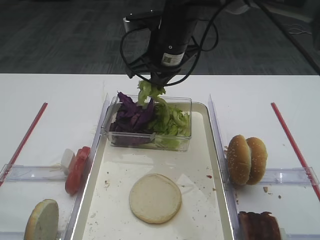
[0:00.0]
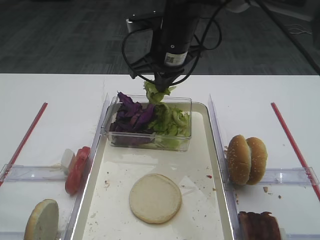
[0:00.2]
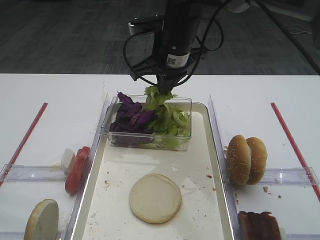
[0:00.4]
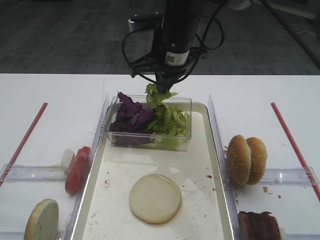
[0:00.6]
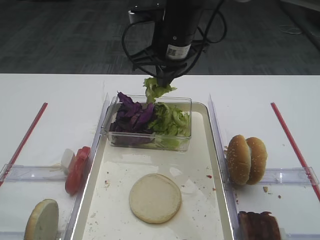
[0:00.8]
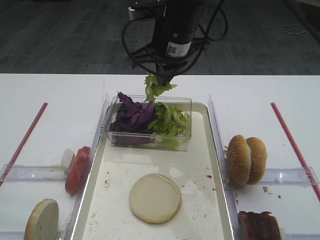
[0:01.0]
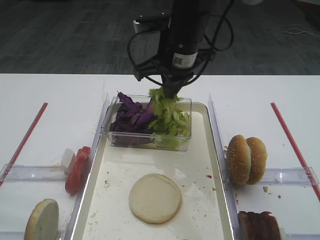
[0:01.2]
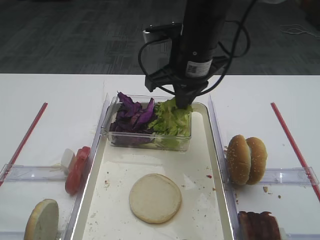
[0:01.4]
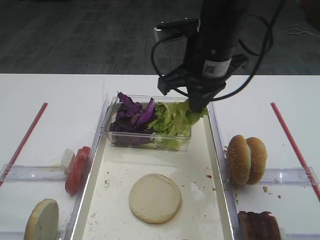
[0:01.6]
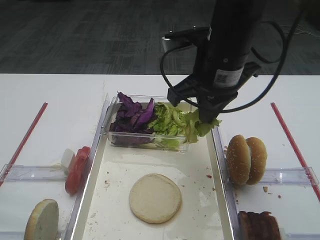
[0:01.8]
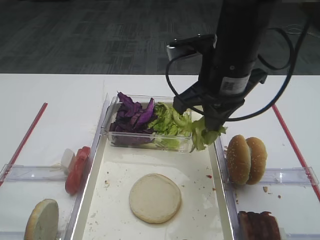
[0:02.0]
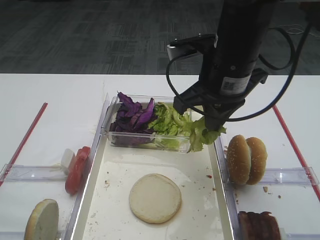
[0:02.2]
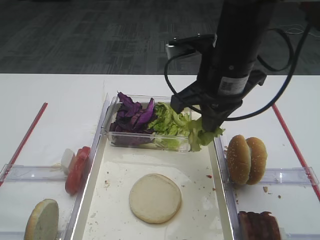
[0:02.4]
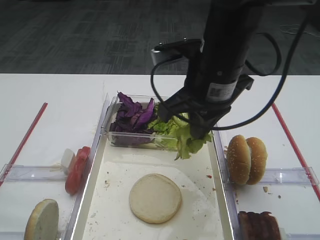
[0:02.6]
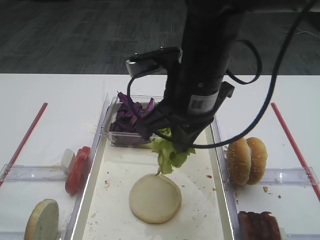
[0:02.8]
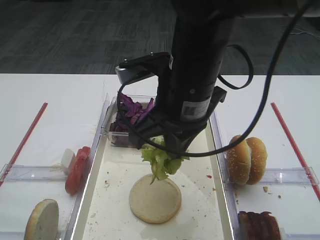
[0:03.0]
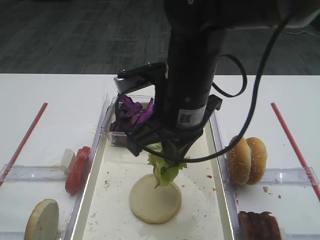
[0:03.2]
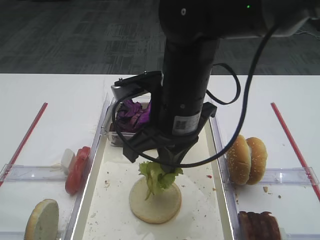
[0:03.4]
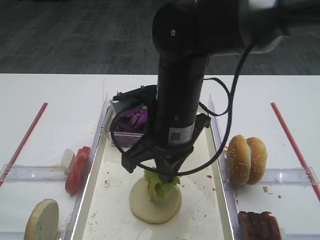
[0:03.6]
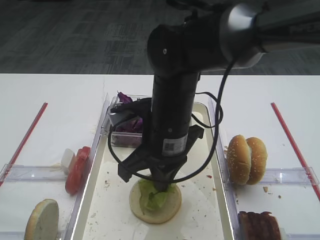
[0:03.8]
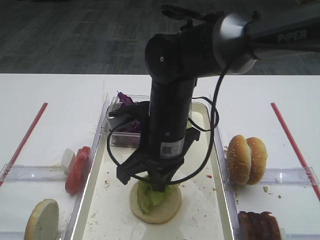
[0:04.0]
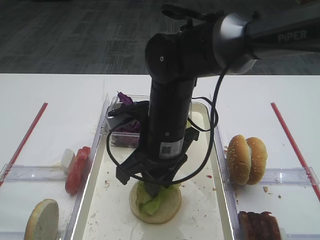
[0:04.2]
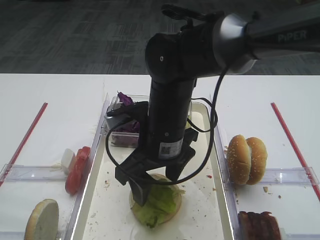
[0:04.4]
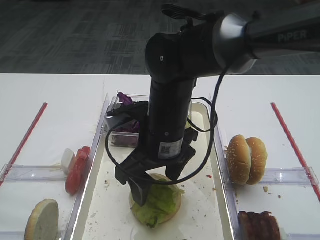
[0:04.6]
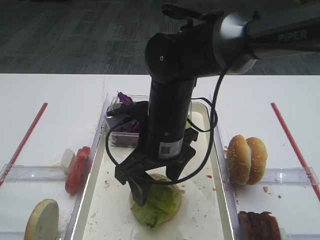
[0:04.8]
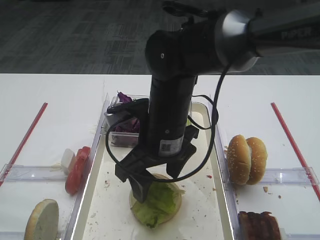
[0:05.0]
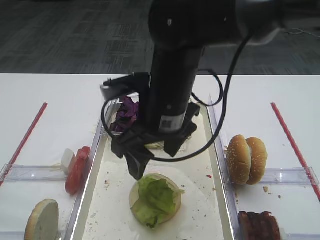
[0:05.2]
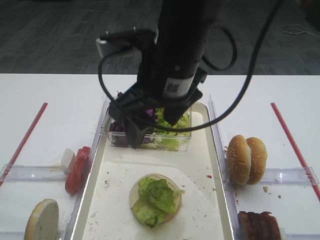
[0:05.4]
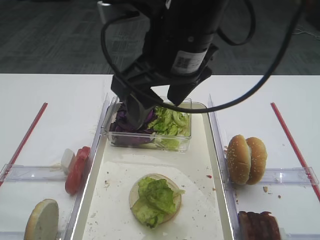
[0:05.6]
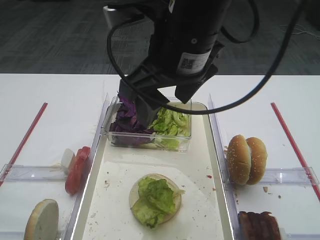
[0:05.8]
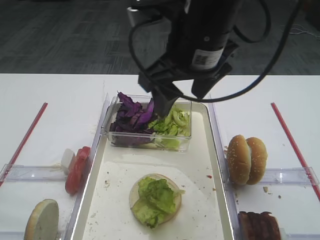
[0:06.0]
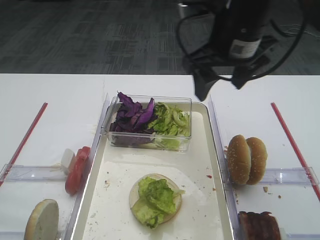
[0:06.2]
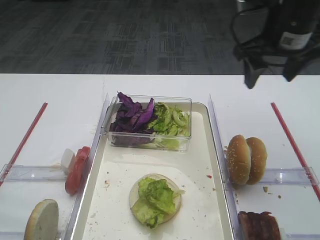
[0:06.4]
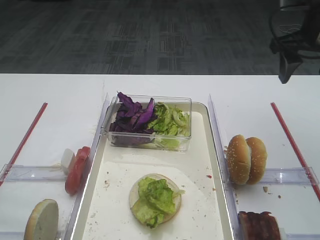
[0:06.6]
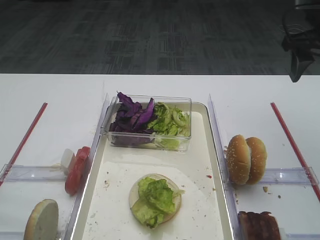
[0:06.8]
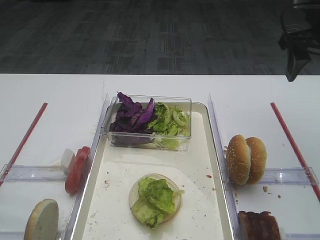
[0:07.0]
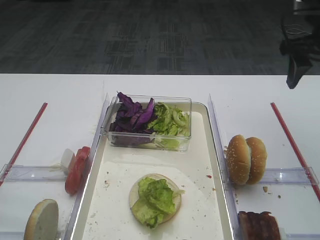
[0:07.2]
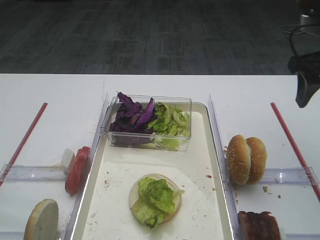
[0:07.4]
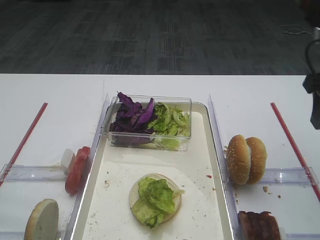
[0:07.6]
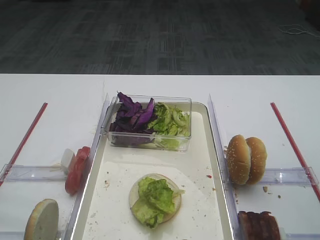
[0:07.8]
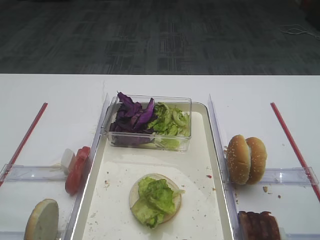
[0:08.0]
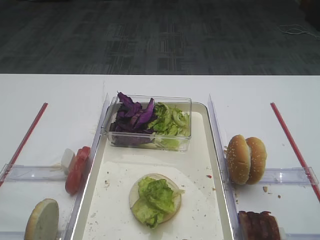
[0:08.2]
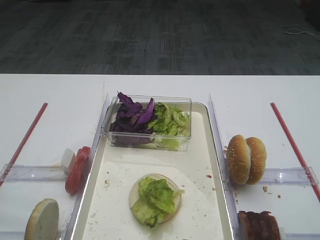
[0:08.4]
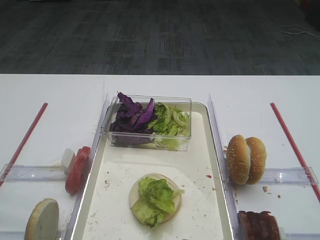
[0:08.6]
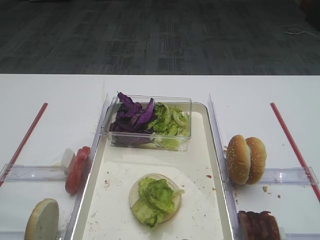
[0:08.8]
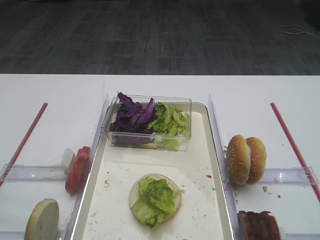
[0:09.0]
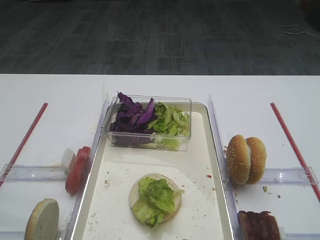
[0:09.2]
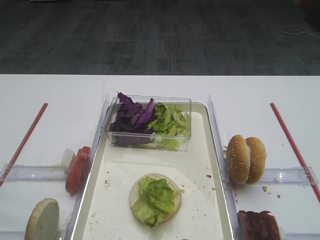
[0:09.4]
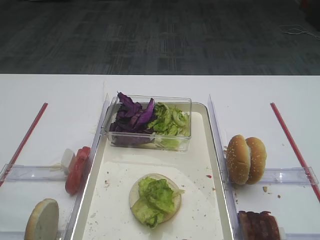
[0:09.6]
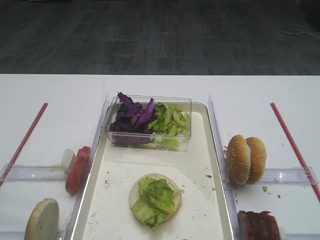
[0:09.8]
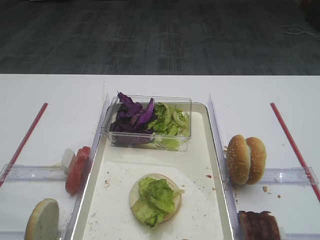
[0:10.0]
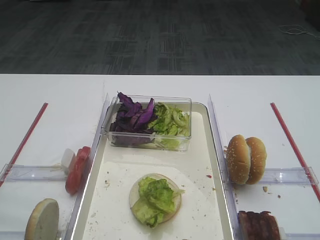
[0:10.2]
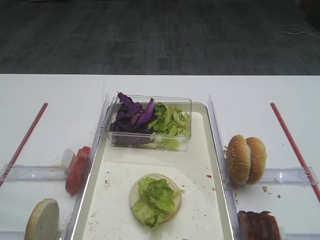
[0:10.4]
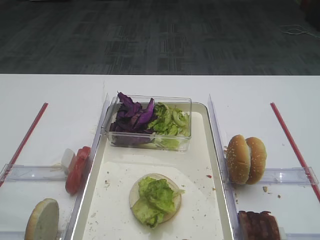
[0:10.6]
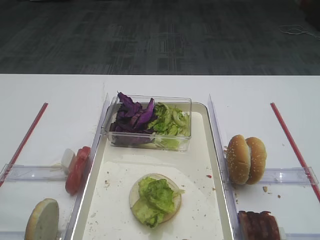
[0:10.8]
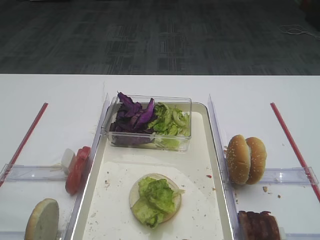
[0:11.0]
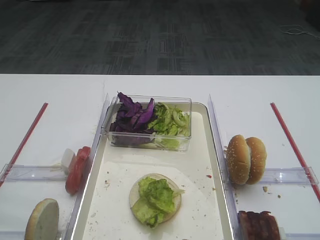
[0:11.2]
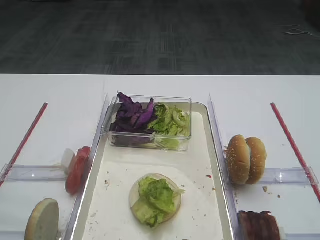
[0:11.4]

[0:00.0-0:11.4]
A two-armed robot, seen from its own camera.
Step, 0:00.8 to 0:06.2: Place the lettuce leaf on the bread slice with the right gripper.
0:00.0 to 0:01.4: The right gripper moves about 5 cm.
0:01.4 to 0:02.8: The right gripper heads backward, covering approximately 10 cm.
0:02.8 to 0:04.2: The right gripper is displaced downward by about 10 cm, and opens up.
0:04.2 to 0:05.6: The right gripper is displaced upward by roughly 15 cm, and opens up.
0:05.6 to 0:07.2: The right gripper moves to the right and forward, about 25 cm.
0:07.2 to 0:08.6: The right gripper travels backward by some 30 cm.
0:10.0 to 0:11.4: The two grippers keep their place.

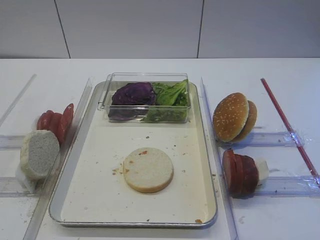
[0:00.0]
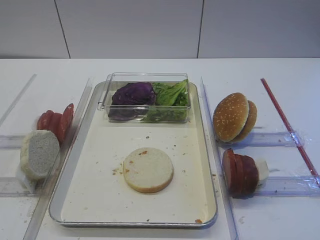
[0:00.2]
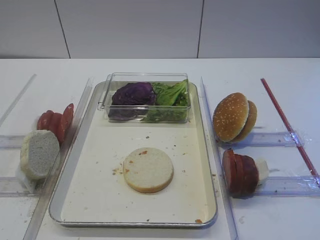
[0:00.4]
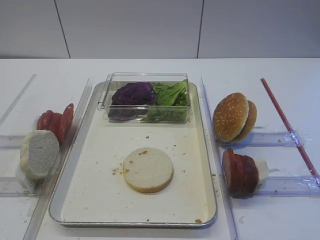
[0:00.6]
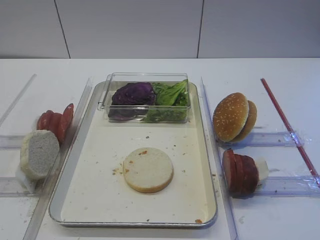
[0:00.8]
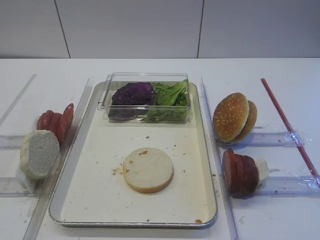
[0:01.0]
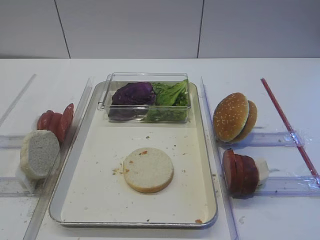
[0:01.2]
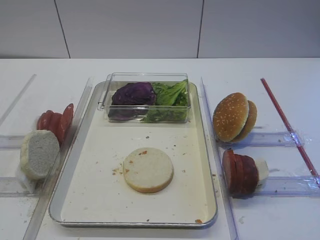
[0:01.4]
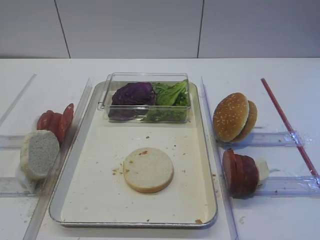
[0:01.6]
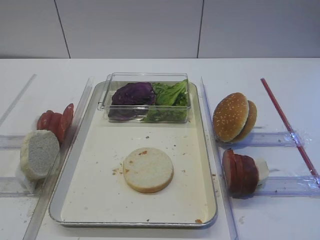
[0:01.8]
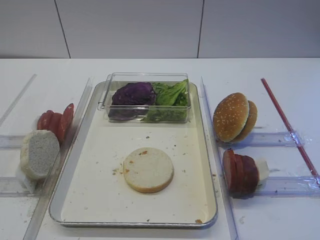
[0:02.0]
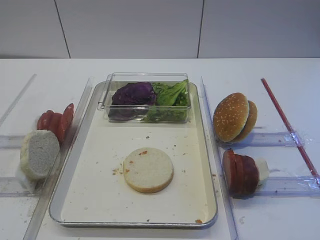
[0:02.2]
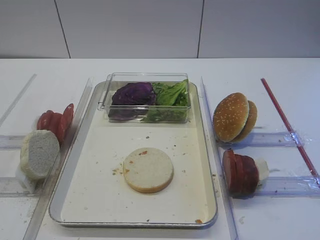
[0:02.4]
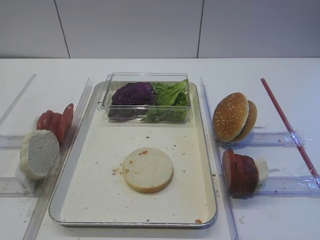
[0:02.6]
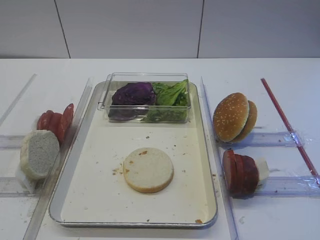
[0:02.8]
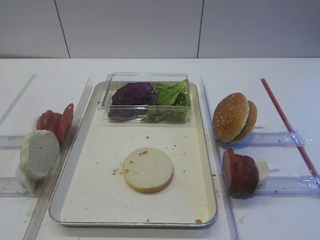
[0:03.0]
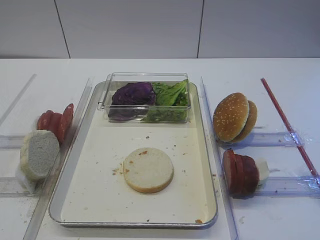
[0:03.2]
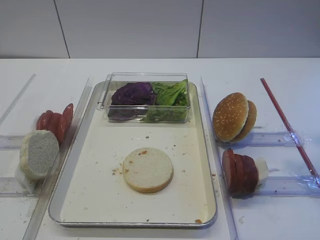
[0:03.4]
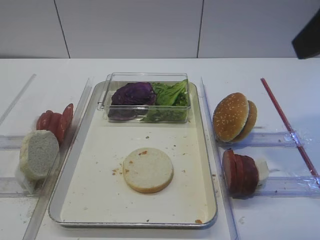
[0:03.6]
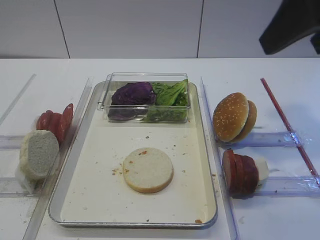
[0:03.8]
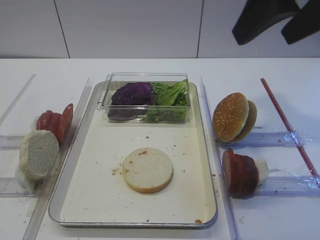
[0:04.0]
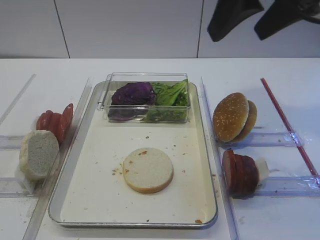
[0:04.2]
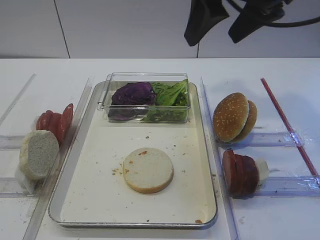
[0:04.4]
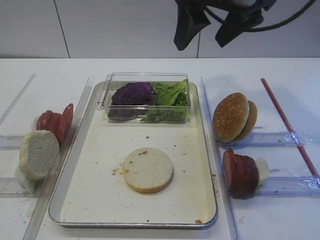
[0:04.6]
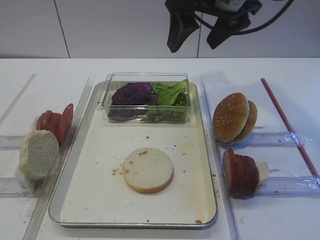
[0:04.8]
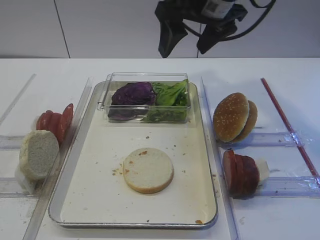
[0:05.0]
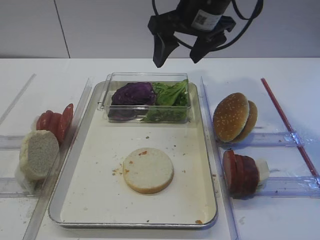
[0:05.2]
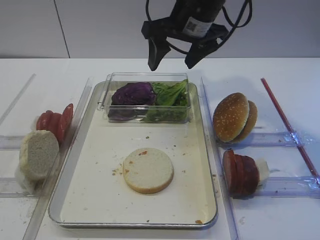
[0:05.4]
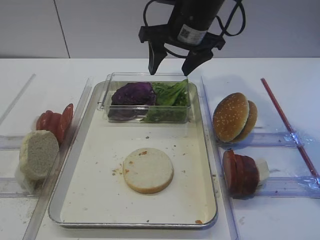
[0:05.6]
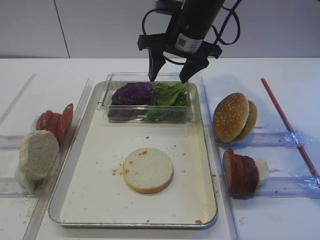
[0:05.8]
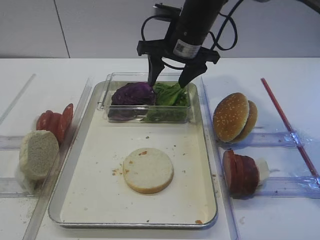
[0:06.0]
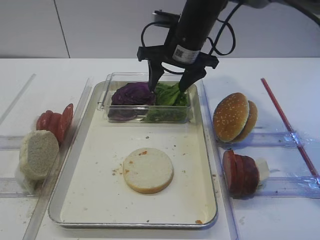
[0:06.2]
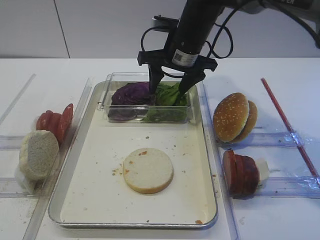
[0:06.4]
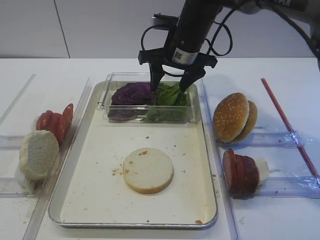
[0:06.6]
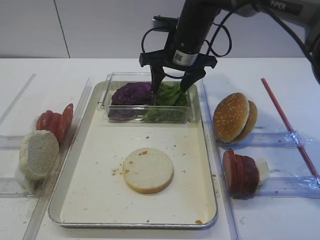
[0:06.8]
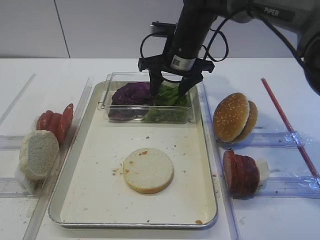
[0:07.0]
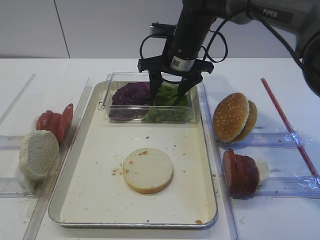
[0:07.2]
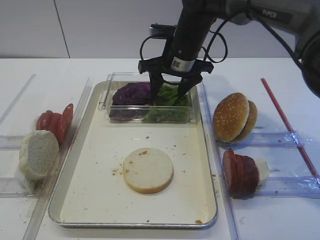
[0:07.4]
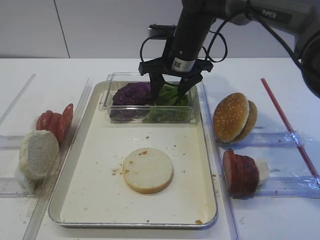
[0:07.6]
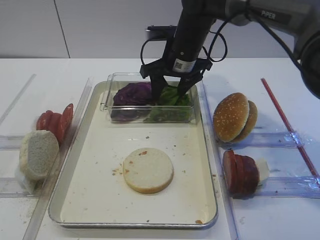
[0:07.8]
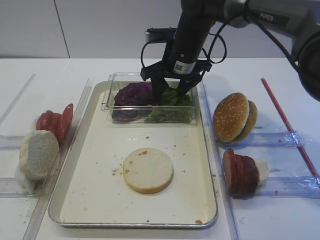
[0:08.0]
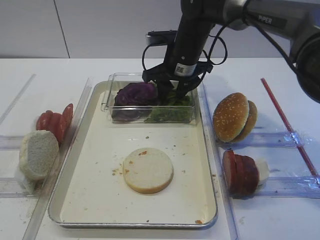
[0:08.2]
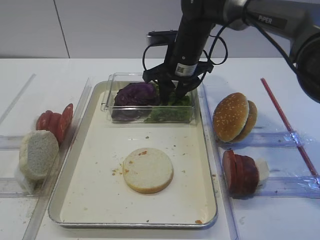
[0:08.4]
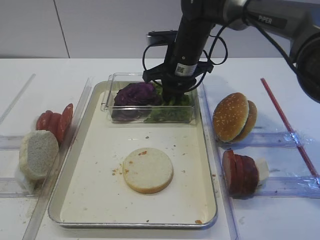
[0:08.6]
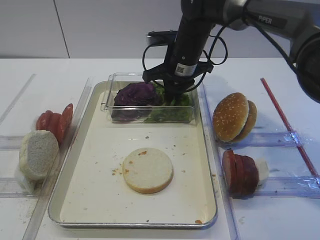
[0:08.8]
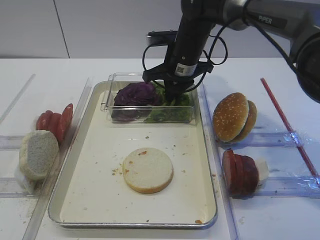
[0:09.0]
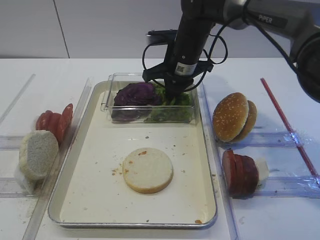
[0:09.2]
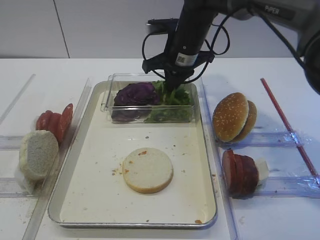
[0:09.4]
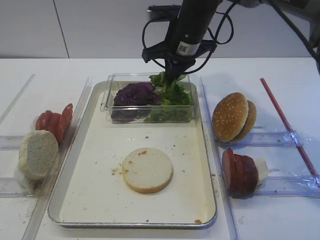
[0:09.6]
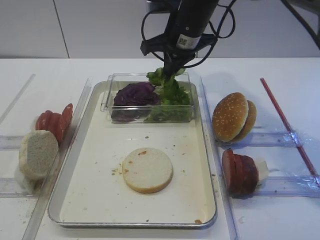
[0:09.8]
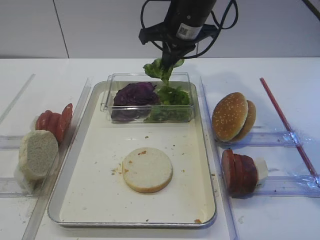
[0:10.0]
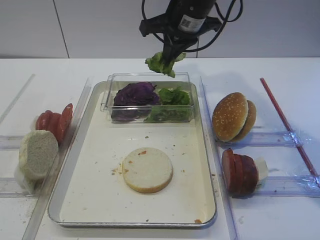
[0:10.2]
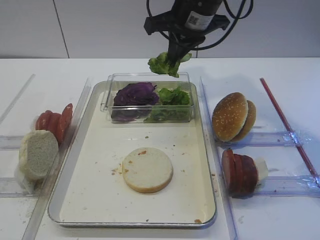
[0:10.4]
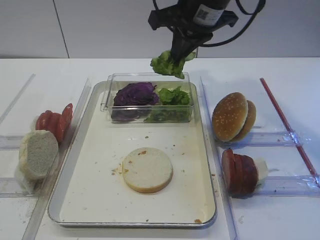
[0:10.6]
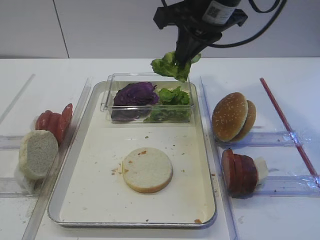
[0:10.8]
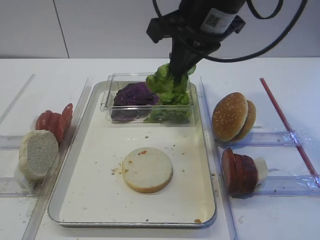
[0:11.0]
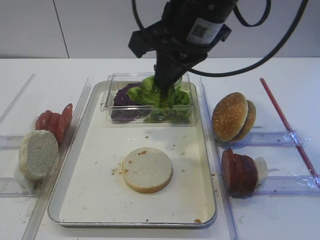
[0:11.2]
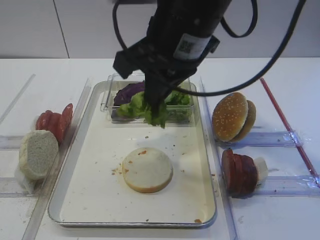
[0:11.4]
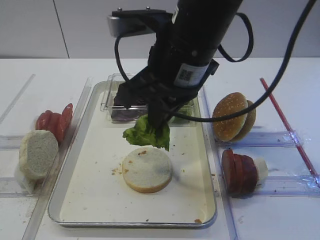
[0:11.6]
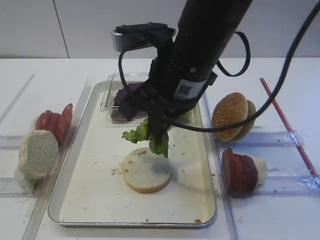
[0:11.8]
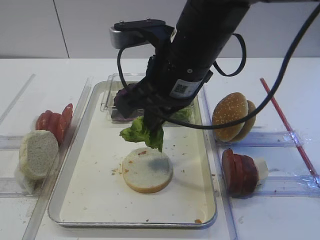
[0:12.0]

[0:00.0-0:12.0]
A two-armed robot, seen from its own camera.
Step, 0:00.0 to 0:10.6: Pick up the lettuce leaf with the right gripper.
Step, 0:11.0 to 0:11.2: Place the lettuce leaf on the bread slice with the right gripper.
0:03.0 to 0:04.4: The right gripper shifts about 25 cm forward and to the left.
0:04.4 to 0:06.0: The right gripper travels downward, forward and to the left by some 20 cm.
0:06.0 to 0:07.6: The right gripper moves roughly 5 cm.
0:07.6 to 0:09.0: The right gripper closes its fingers.
0:09.0 to 0:10.4: The right gripper heads upward, covering some 10 cm.
0:10.4 to 0:12.0: The right gripper heads backward, covering roughly 15 cm.
